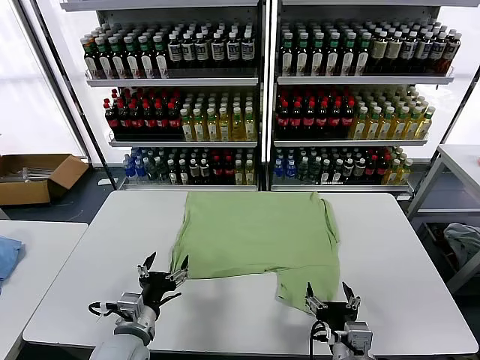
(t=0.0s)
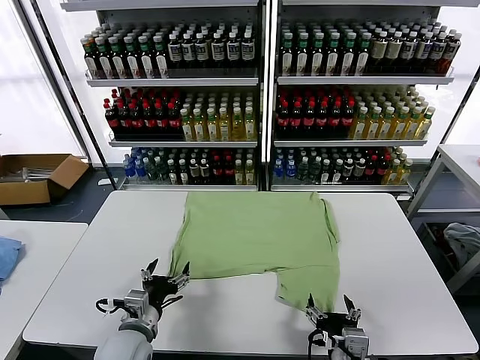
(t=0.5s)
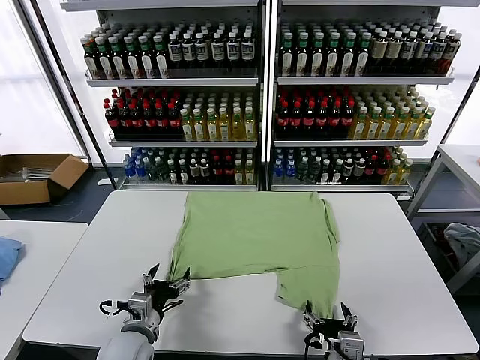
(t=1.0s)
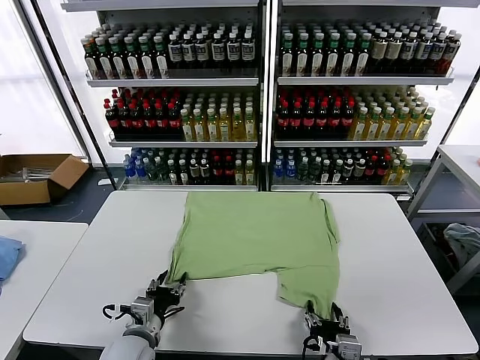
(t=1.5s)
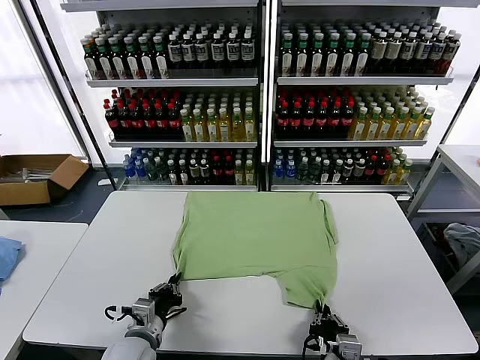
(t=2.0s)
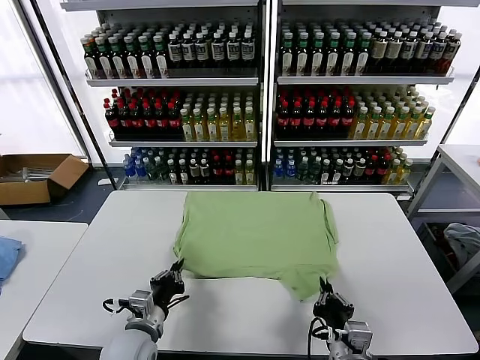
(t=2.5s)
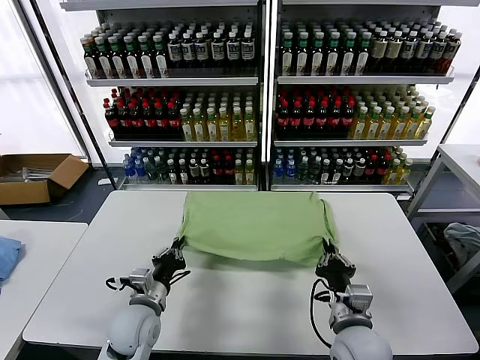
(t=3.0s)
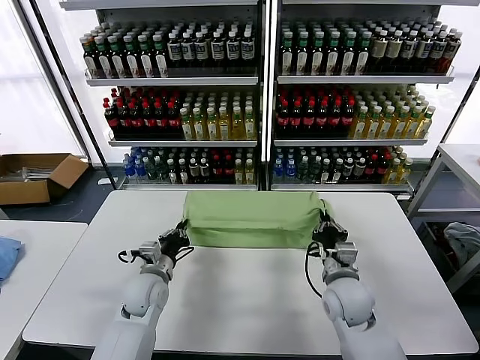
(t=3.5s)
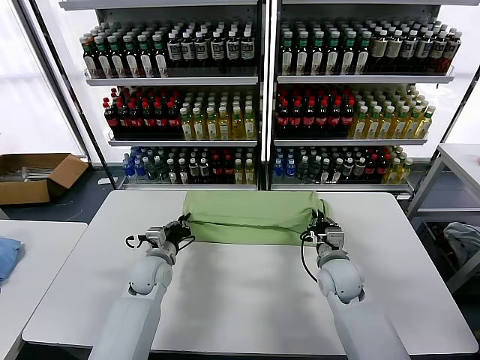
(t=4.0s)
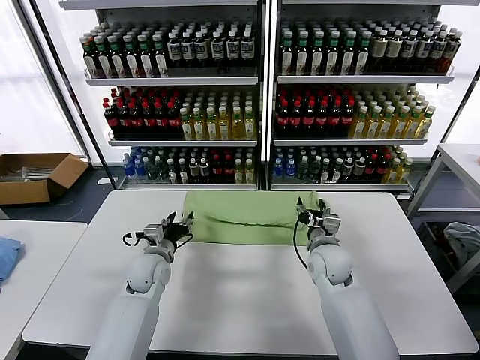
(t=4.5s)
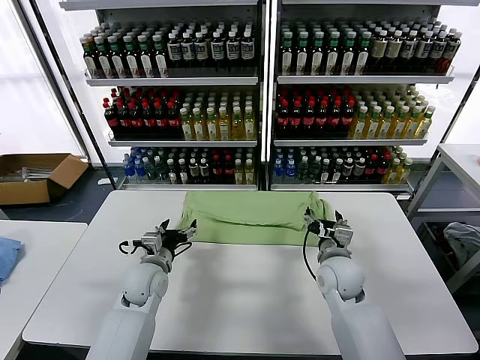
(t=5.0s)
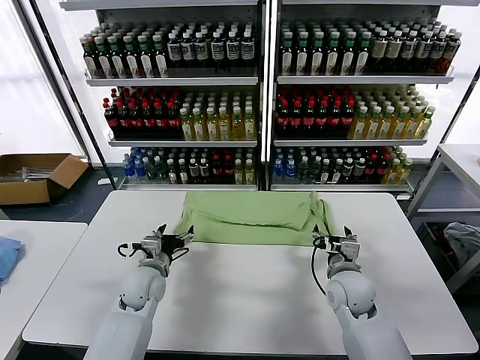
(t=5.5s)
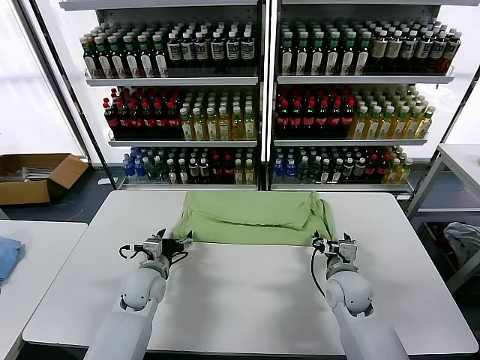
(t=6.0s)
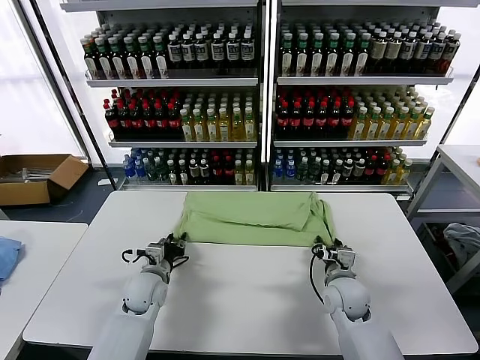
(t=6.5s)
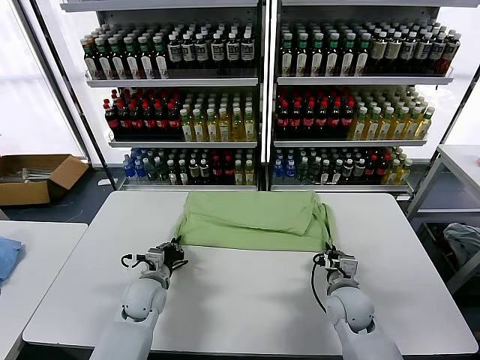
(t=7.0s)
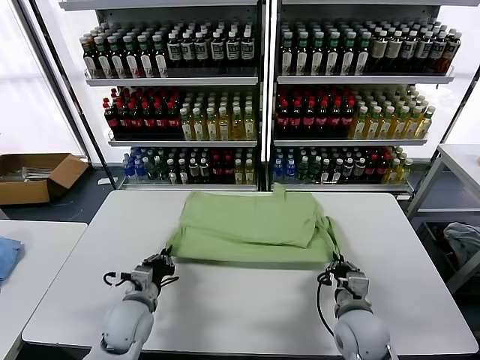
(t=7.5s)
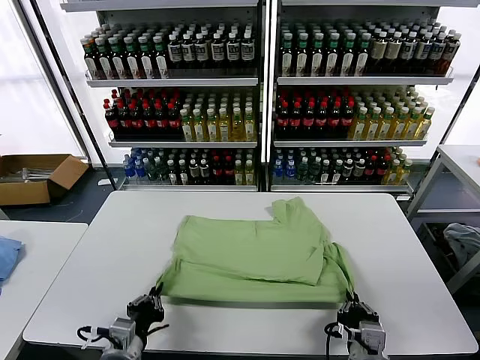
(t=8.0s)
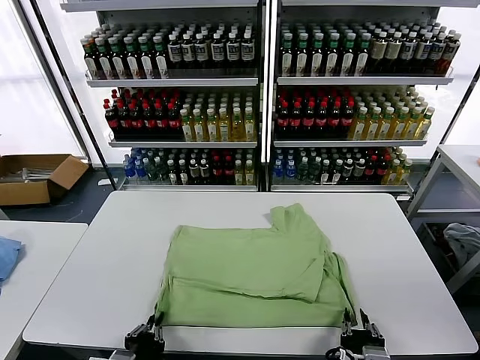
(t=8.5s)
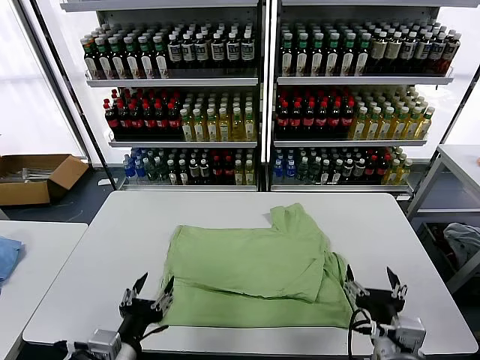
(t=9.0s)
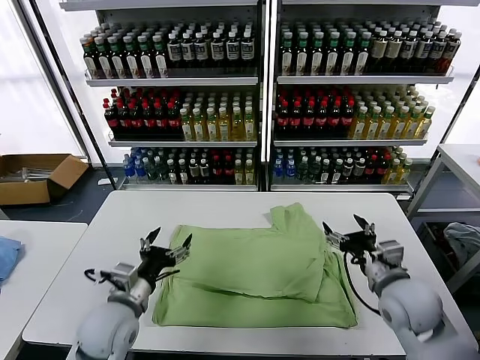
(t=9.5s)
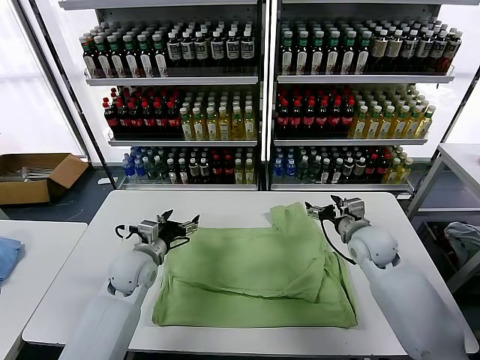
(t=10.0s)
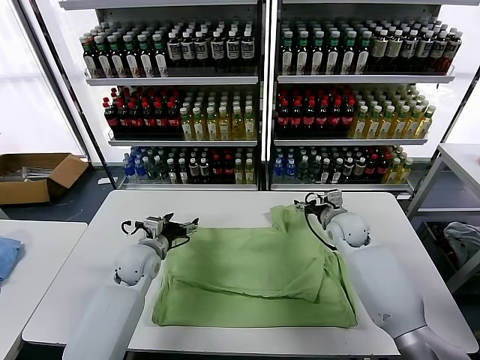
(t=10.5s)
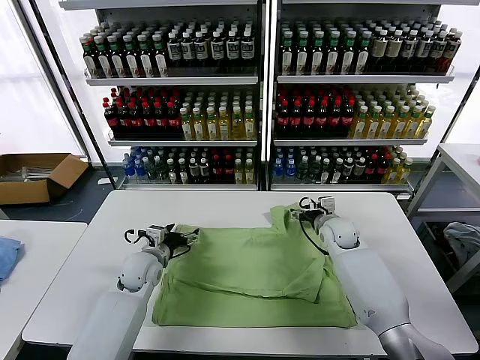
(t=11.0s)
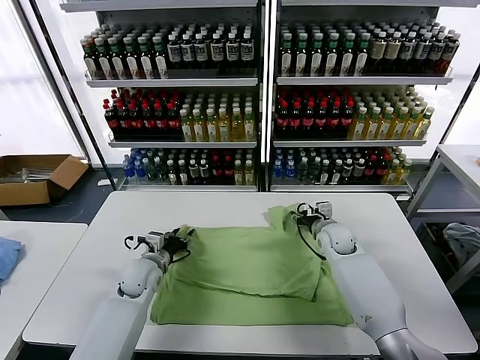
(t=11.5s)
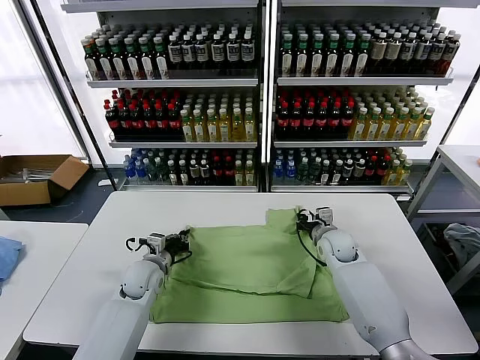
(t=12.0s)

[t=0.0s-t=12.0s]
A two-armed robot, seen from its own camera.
Task of the whole recording: fold and organize the clothes.
Step, t=0.0s to t=2.0s: use both grippers simultaneously to clamp the lower edge of the clothing fabric.
Step, t=2.5s to t=4.5s: use both grippers to drag the lower edge of the fabric forward and fold it over the upper edge.
Step, t=5.0s to t=8.5s: Drag the clothes downward with both gripper.
t=2.0s to t=4.0s: The two grippers go about 20 cm forward.
t=4.0s to t=6.0s: The left gripper opens, while the right gripper opens its fingers.
t=6.0s to t=8.0s: Both grippers travel together backward, approximately 20 cm. The right gripper closes up. Meanwhile the left gripper closes.
t=8.0s to t=10.0s: Both grippers move forward, some 25 cm. The right gripper opens up; the left gripper opens.
t=10.0s to t=12.0s: The grippers both shift downward by roughly 10 cm. The left gripper closes up. The right gripper closes its fingers.

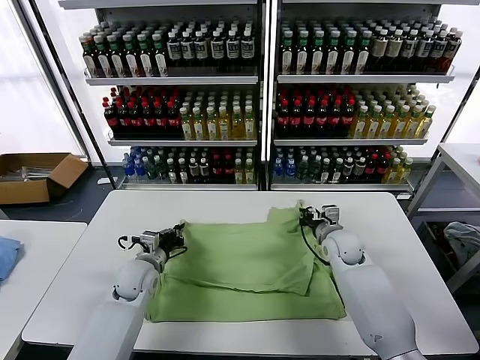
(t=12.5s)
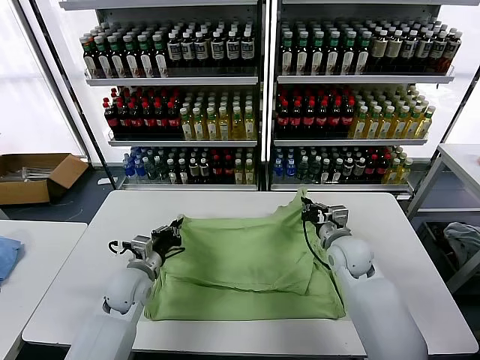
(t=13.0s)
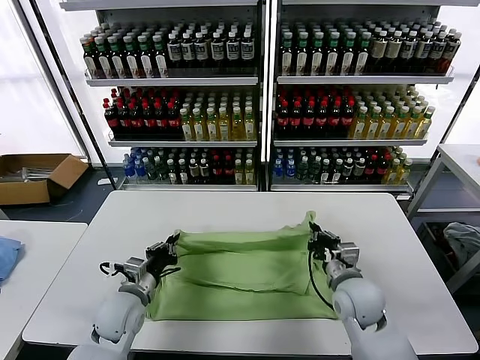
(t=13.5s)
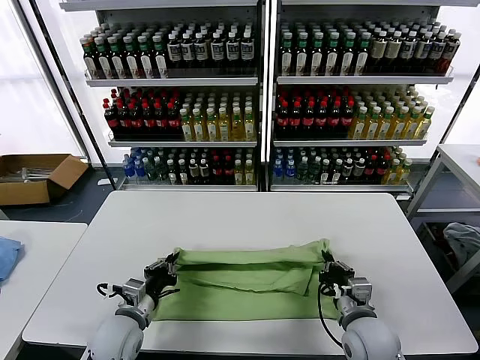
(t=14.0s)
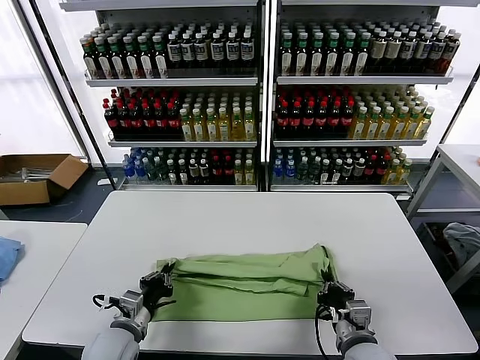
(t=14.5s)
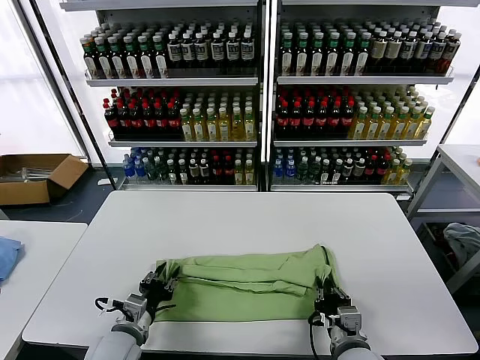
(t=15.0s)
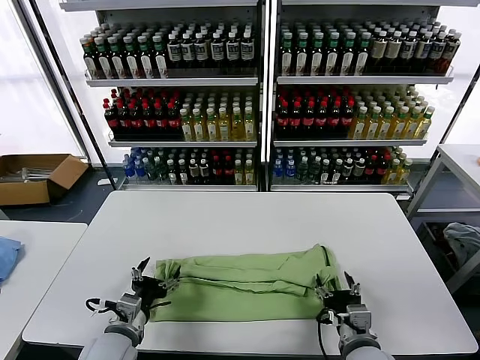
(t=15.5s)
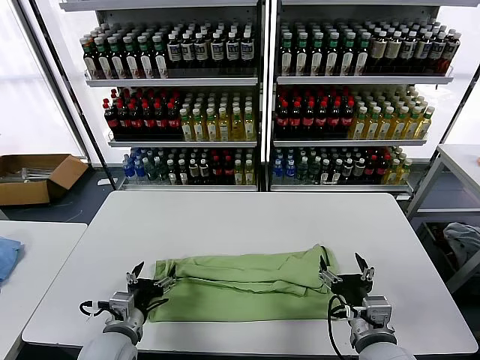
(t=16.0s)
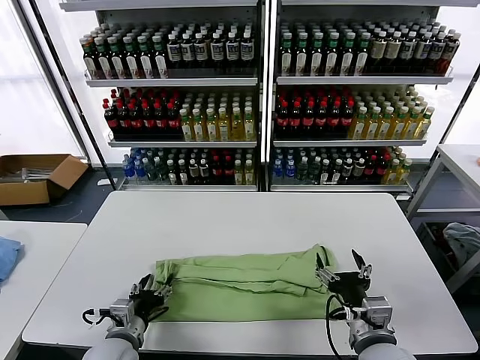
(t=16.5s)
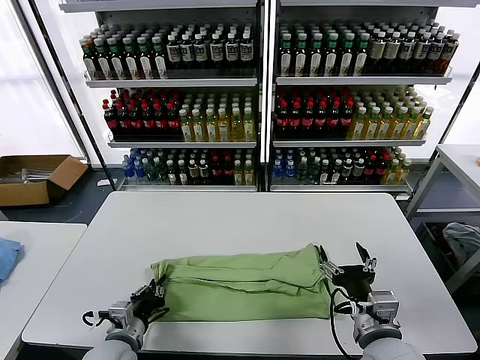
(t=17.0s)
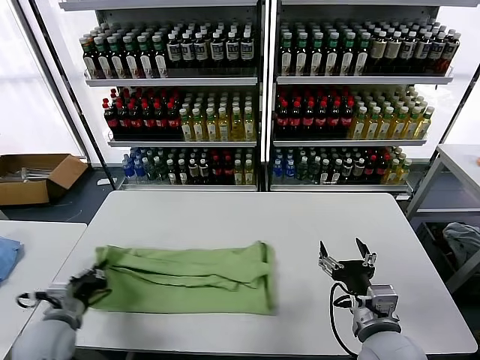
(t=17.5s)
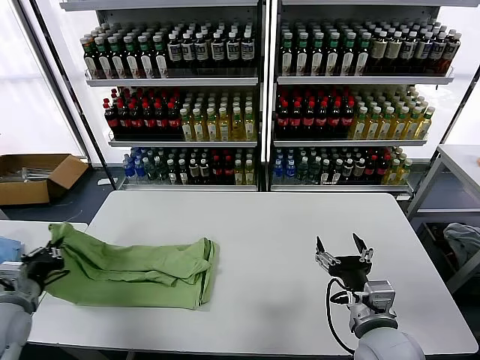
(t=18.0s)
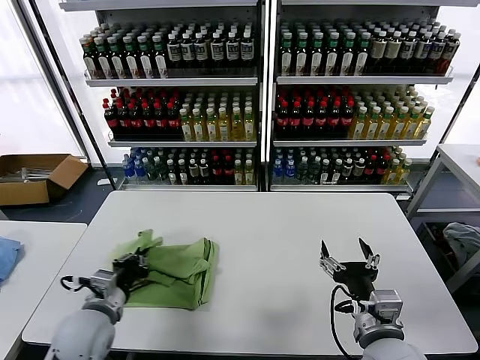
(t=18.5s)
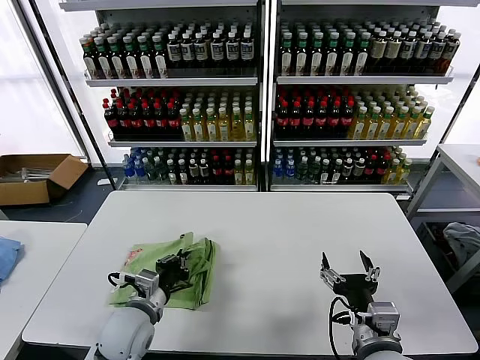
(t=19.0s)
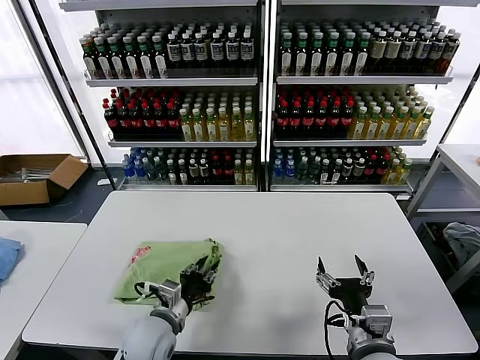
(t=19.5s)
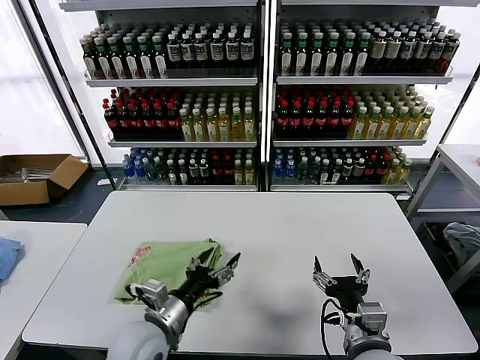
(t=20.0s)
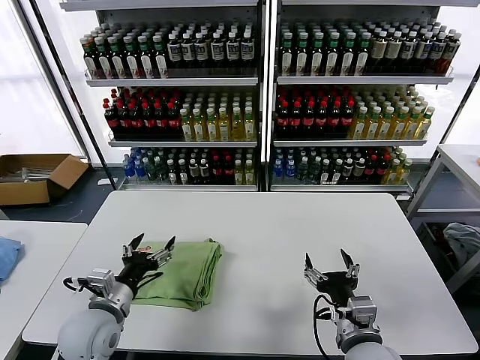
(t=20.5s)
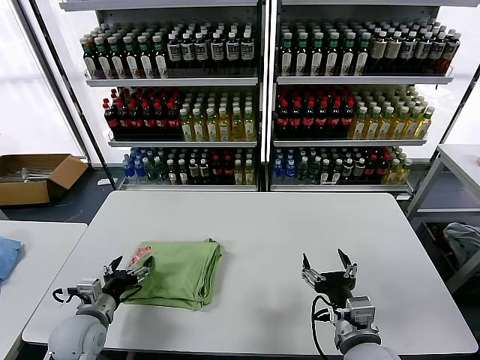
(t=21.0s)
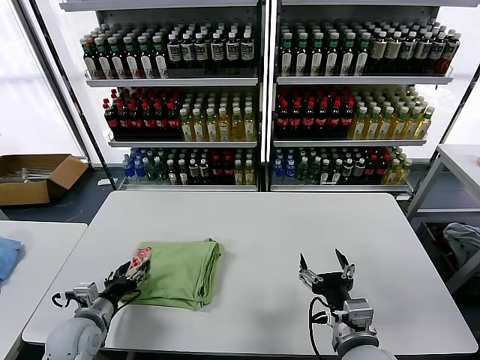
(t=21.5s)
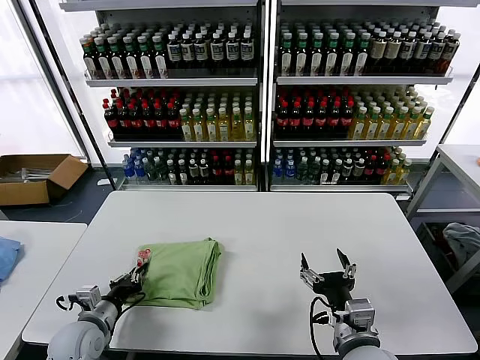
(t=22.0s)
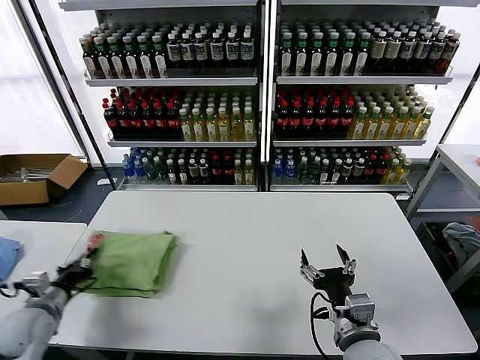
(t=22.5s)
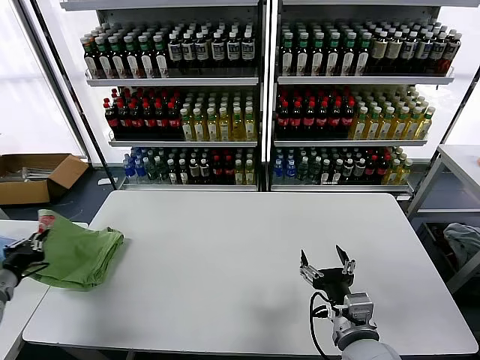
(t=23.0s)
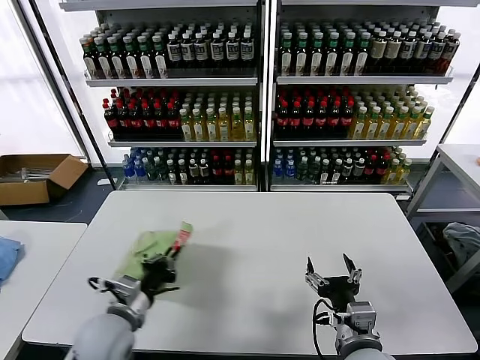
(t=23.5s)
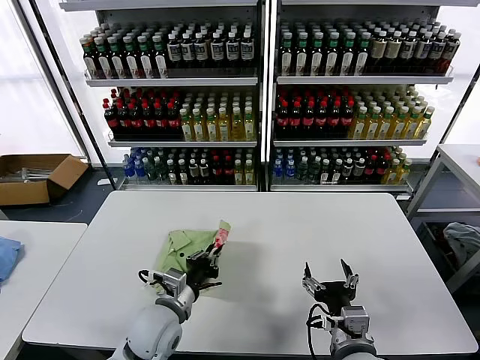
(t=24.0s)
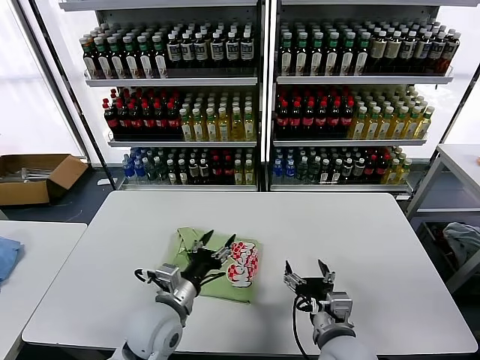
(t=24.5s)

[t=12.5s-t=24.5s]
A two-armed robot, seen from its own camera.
Task of the whole recording: fold and organize the clothes.
Step, t=12.5s to t=15.5s: use both grippers to drag the upper edge of the fabric backward and fold it over the lower edge.
Step, t=16.0s to t=17.0s: use the left gripper to clamp the left edge of the fabric.
Step, t=17.5s to t=19.5s: use the left gripper to drag the left edge of the fabric to the left and folds it over the right edge.
Step, t=20.0s to t=24.0s: Flip the folded clothes over with left gripper.
t=12.5s to t=14.5s: The left gripper is displaced backward by some 15 cm. The right gripper heads backward, covering about 25 cm.
t=14.5s to t=16.5s: The left gripper opens; the right gripper shifts about 5 cm upward, and opens up.
t=16.5s to t=18.5s: The left gripper heads upward, covering approximately 5 cm, travels to the left and back again, about 20 cm each way, and closes its fingers.
t=18.5s to t=20.5s: The left gripper travels to the right and back again, about 15 cm each way, and opens.
t=20.5s to t=22.5s: The left gripper shifts roughly 15 cm to the left, and closes up.
t=22.5s to t=24.5s: The left gripper heads to the right, covering some 25 cm, and opens up.

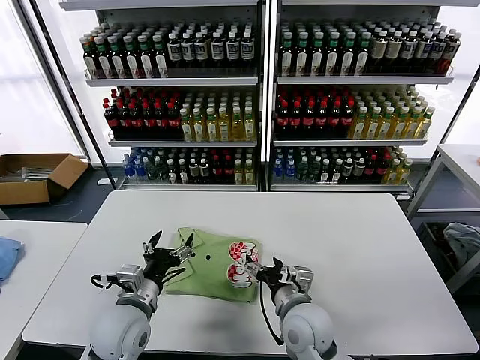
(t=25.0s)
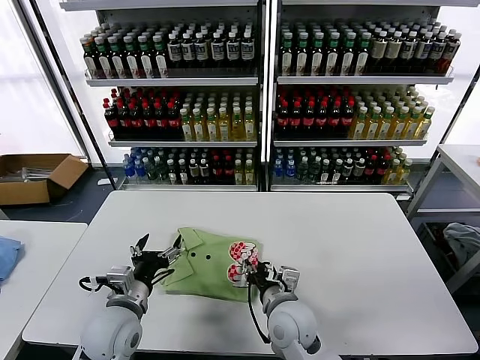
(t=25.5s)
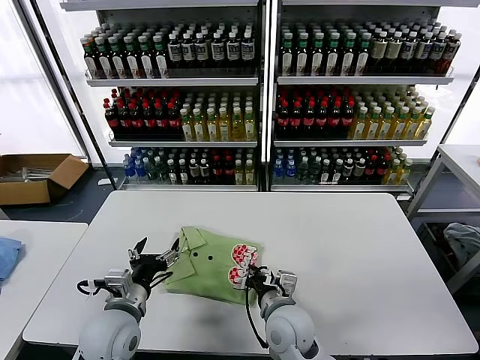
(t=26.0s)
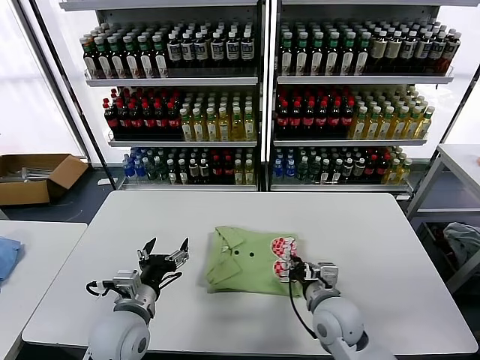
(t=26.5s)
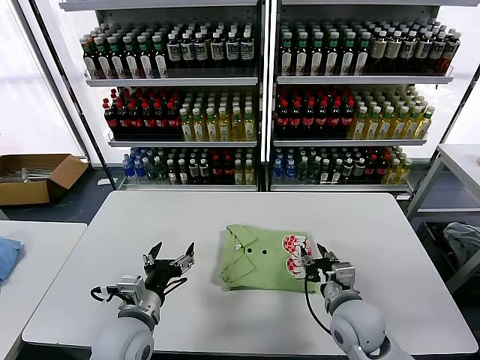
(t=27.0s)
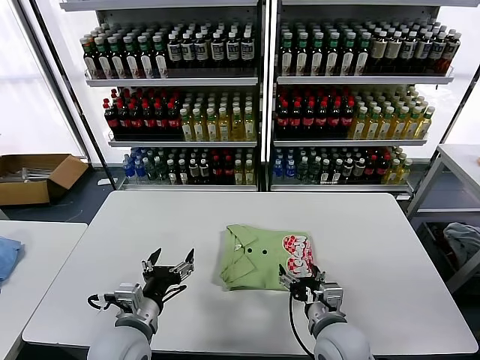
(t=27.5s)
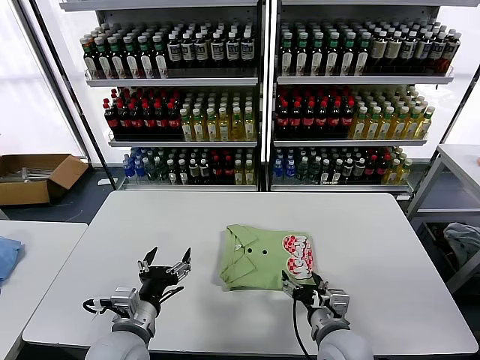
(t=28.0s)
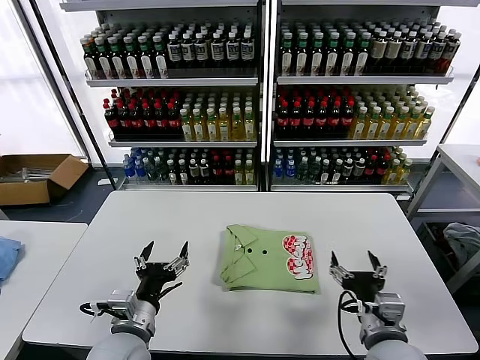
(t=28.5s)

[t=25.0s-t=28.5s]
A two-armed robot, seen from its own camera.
Task of the whole recording: fold and organize the clothes.
Step, t=25.0s to t=28.0s: Drag the clothes to the center of the table.
t=25.0s to t=27.0s: The right gripper shifts roughly 10 cm to the right, and closes up.
t=27.0s to t=28.5s: The right gripper travels backward by some 10 cm, and opens up.
